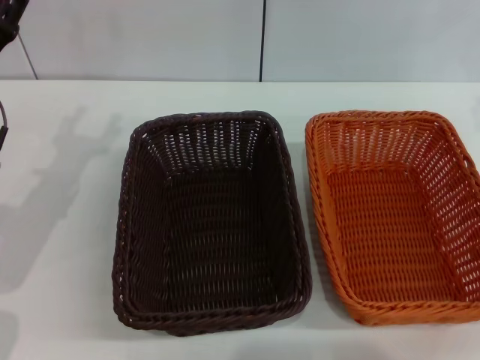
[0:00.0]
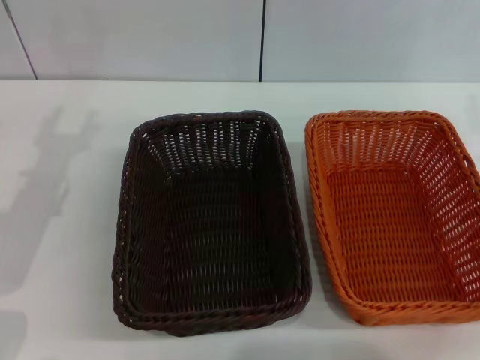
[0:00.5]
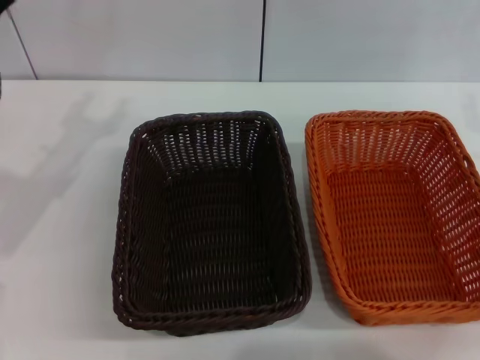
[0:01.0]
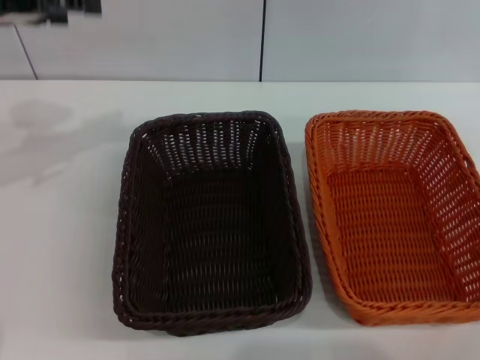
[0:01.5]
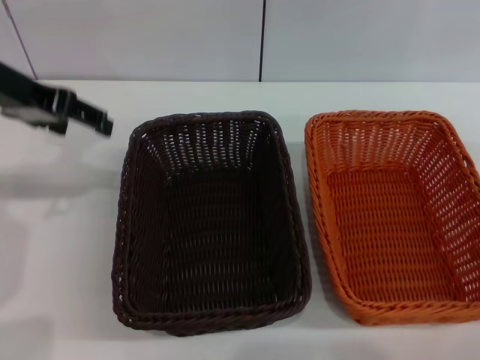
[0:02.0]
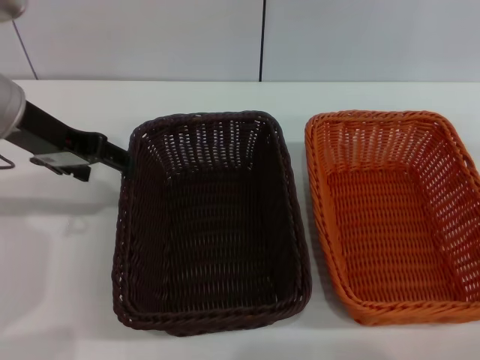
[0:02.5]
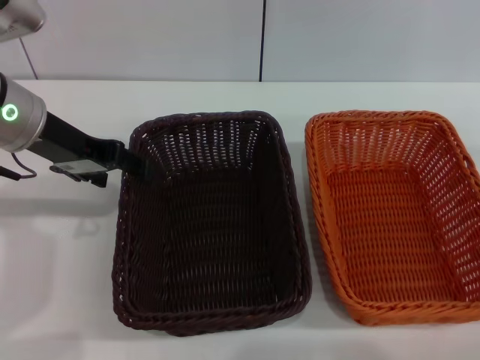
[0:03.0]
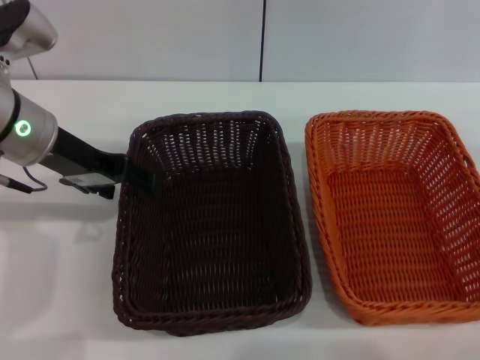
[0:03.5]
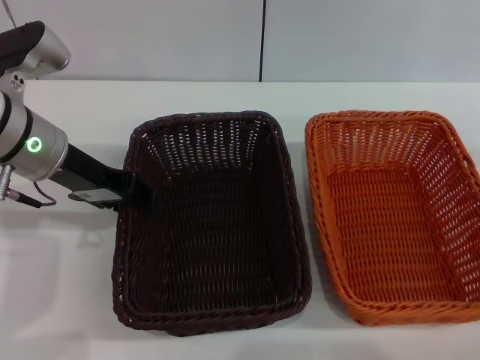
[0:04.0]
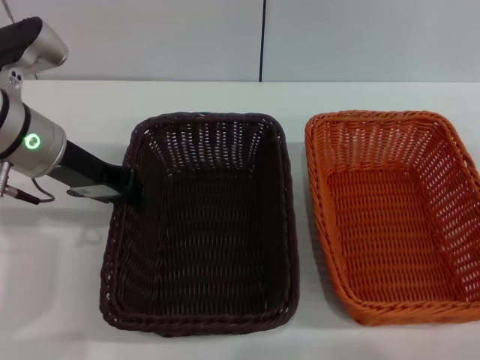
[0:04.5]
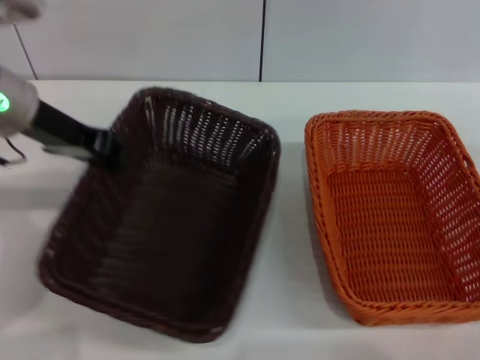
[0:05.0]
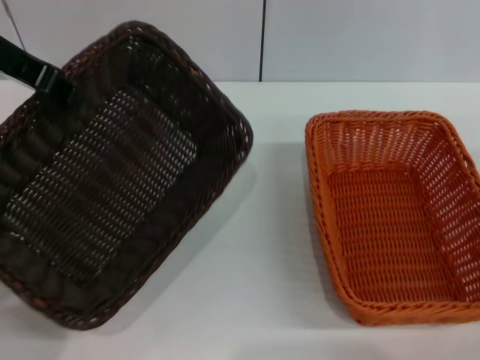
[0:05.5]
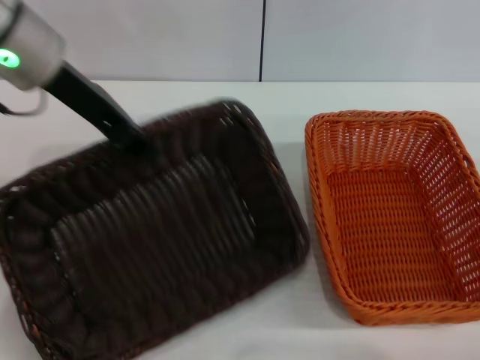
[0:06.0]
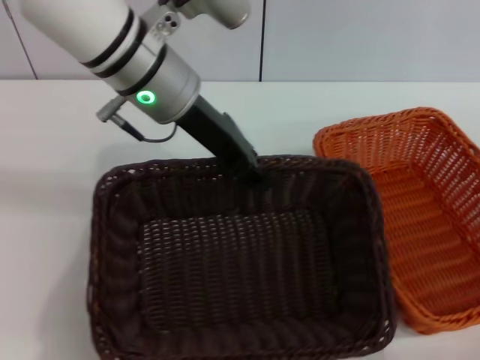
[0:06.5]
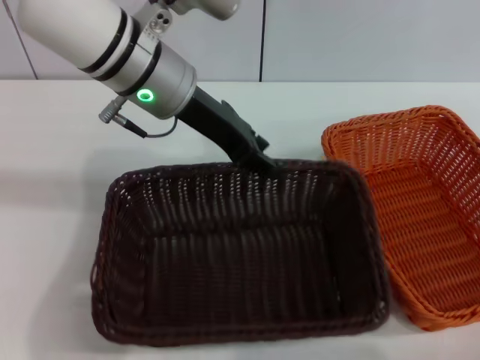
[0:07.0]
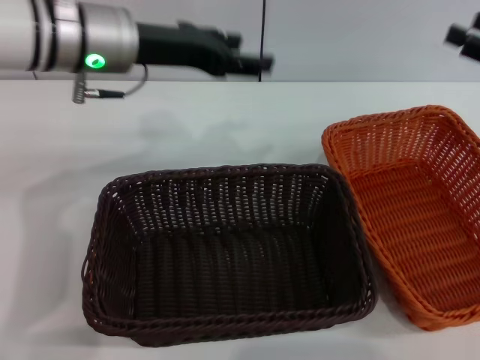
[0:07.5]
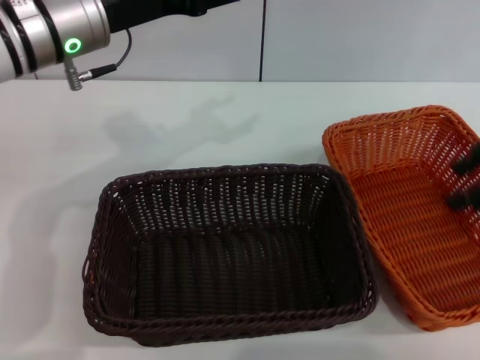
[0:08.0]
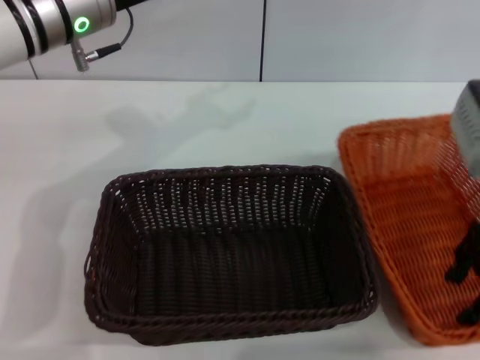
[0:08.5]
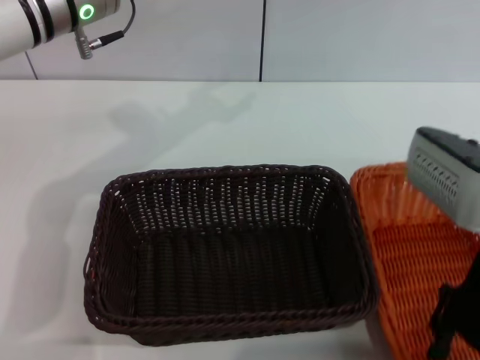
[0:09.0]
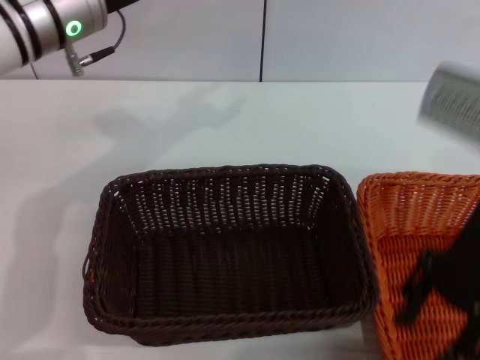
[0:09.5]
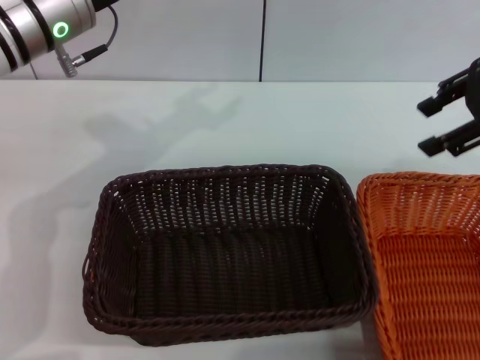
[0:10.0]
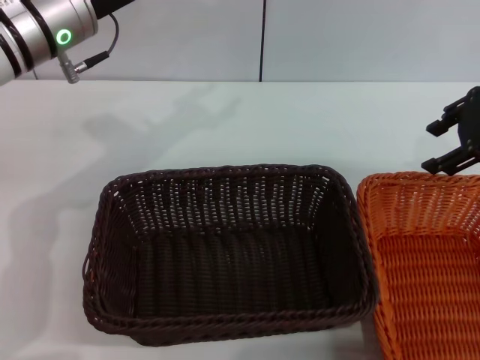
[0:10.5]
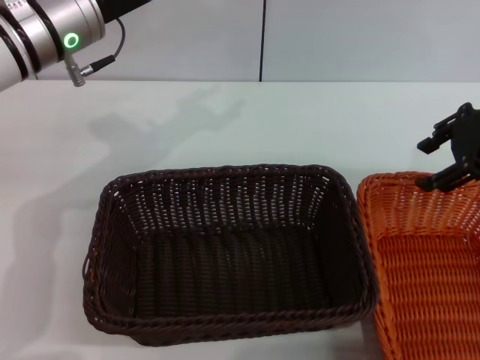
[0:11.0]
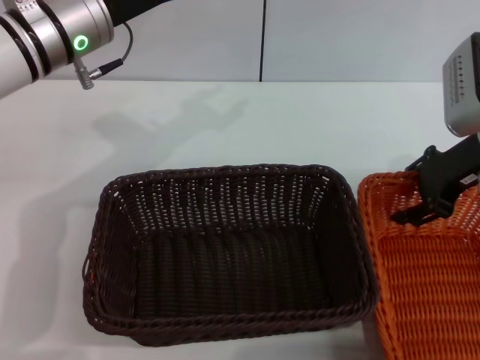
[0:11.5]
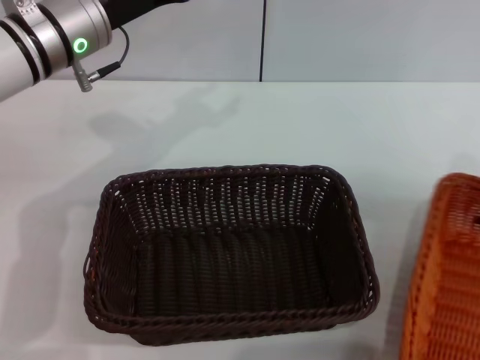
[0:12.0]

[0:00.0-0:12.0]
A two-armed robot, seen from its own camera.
Step, 0:00.0 to 0:05.0: Pick up the dark basket with the left gripper.
Step, 0:05.5 to 0:07.0: Place the dark basket in the center of view with the left gripper.
0:00.0 to 0:02.0: The left gripper moves upward, approximately 15 cm.
0:02.0 to 0:04.0: The left gripper goes roughly 10 cm downward.
0:04.0 to 0:06.0: The left gripper is displaced upward by some 10 cm, and closes.
0:06.0 to 0:08.0: The right gripper travels upward and to the left by some 15 cm. Meanwhile the left gripper travels to the right and back again, about 10 cm each way, and opens.
0:08.0 to 0:10.0: The right gripper reaches about 10 cm to the left, then returns.
0:10.0 to 0:12.0: The right gripper heads downward, covering approximately 10 cm, and closes.

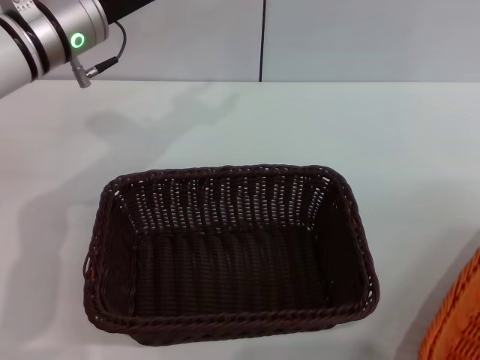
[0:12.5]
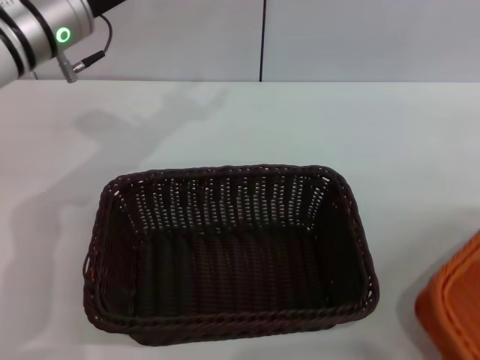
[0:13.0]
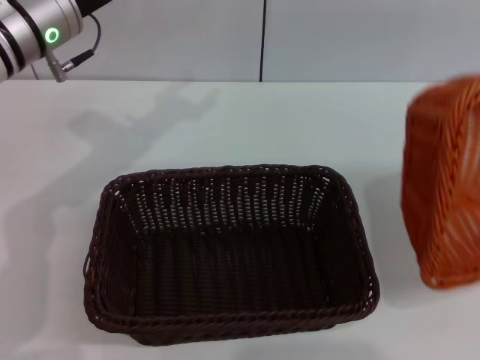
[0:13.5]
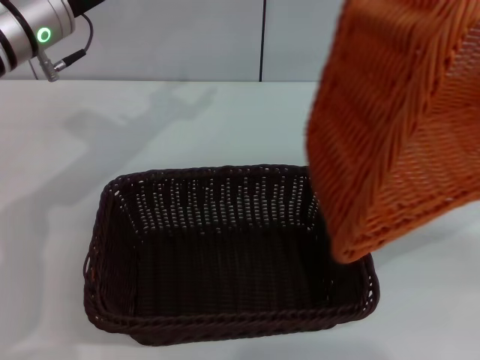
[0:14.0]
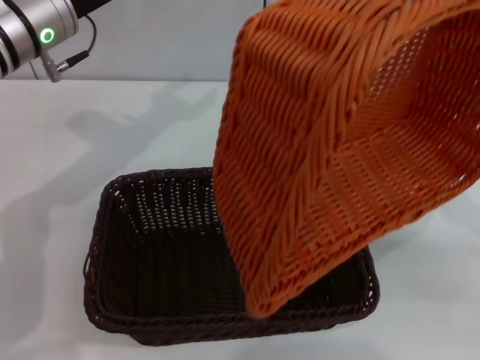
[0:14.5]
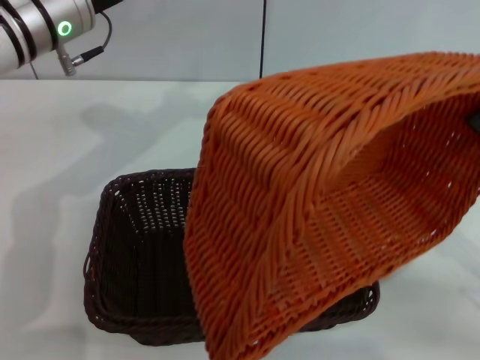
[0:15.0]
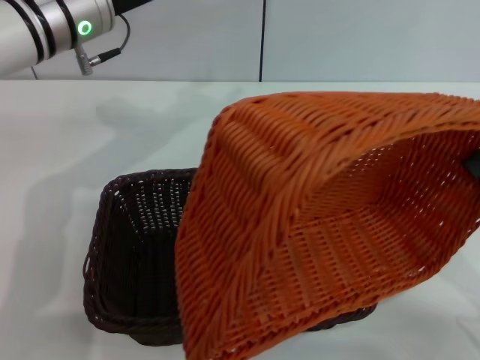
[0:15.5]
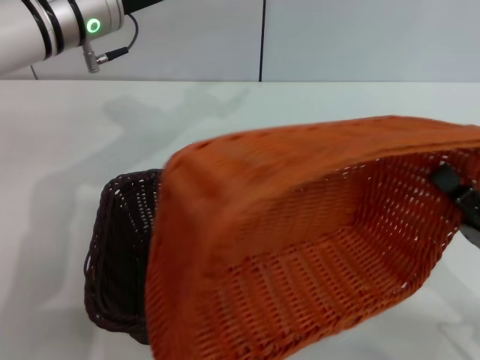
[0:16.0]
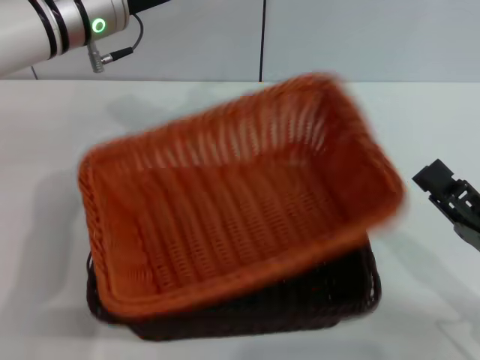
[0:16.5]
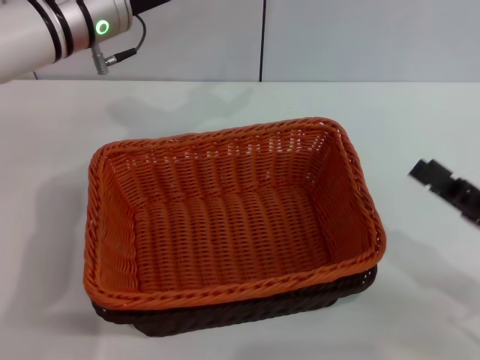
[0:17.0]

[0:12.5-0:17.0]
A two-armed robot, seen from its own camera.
Step, 0:12.5 to 0:16.5: Place the light basket on the dark basket with the right gripper.
0:12.5 to 0:14.5: The right gripper travels to the left and backward by about 10 cm.
0:14.5 to 0:17.0: The right gripper opens its fingers.
